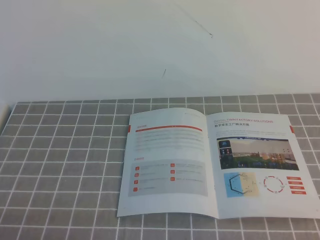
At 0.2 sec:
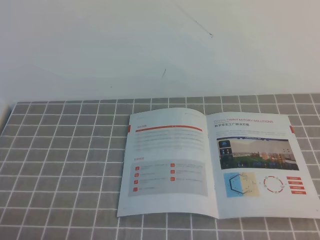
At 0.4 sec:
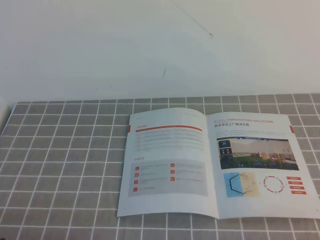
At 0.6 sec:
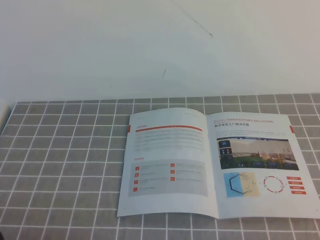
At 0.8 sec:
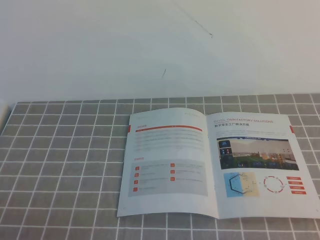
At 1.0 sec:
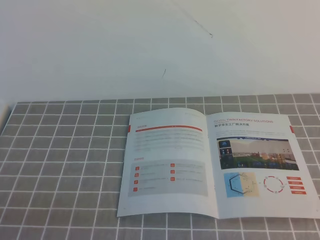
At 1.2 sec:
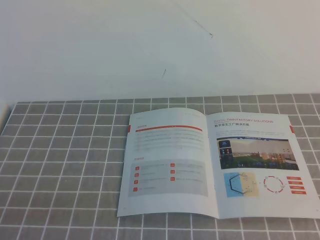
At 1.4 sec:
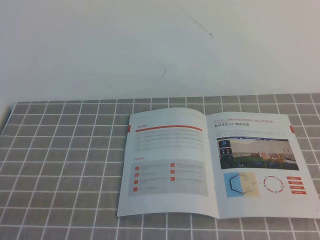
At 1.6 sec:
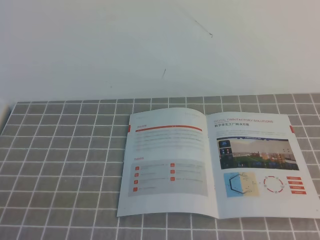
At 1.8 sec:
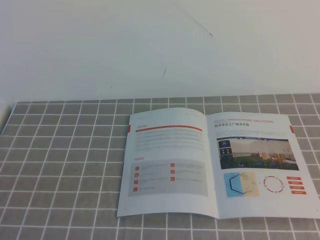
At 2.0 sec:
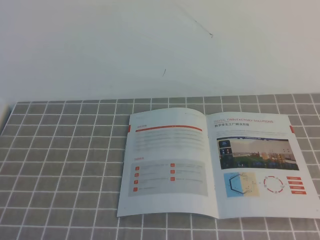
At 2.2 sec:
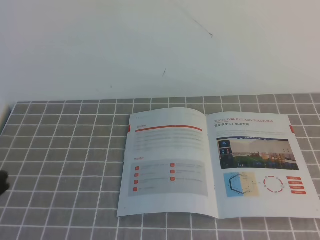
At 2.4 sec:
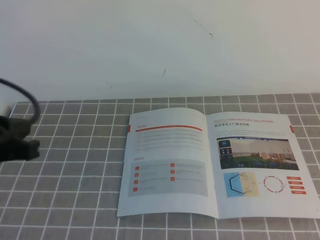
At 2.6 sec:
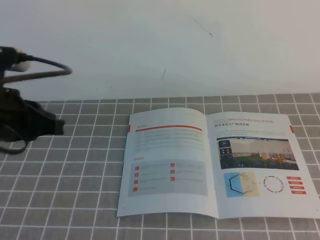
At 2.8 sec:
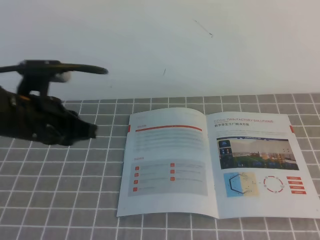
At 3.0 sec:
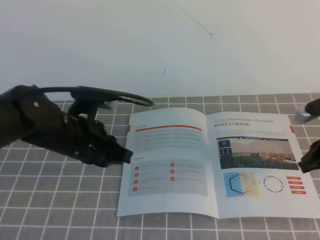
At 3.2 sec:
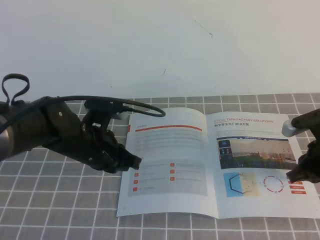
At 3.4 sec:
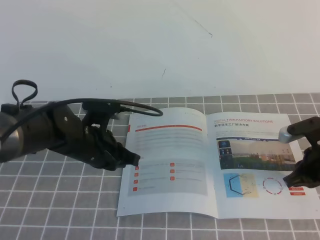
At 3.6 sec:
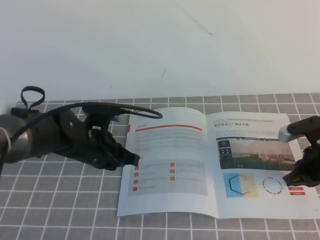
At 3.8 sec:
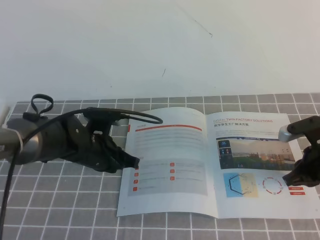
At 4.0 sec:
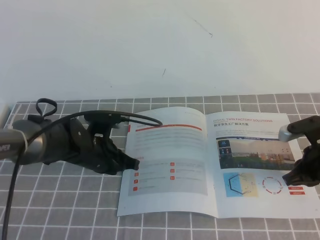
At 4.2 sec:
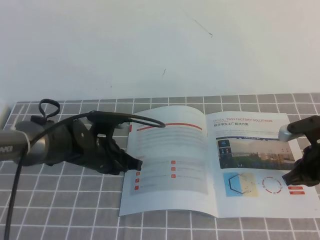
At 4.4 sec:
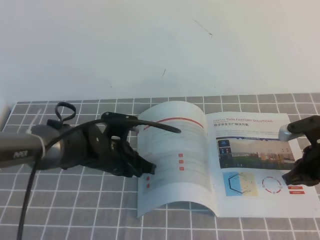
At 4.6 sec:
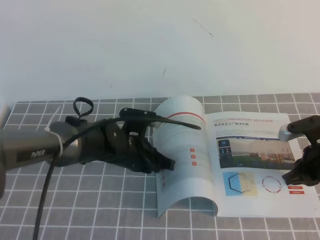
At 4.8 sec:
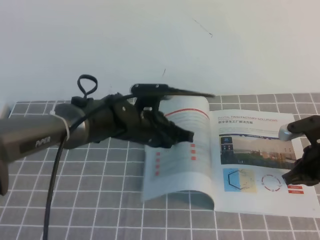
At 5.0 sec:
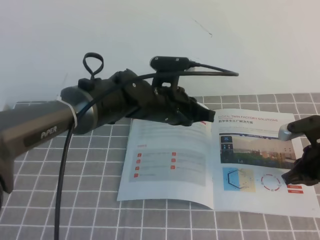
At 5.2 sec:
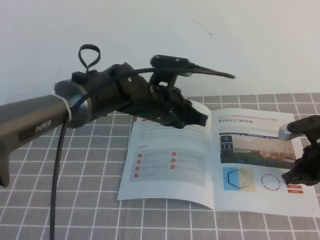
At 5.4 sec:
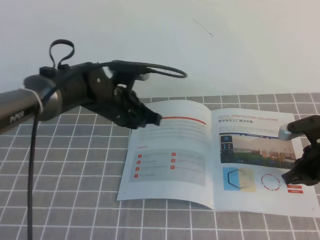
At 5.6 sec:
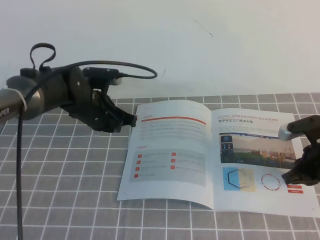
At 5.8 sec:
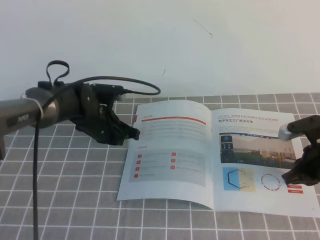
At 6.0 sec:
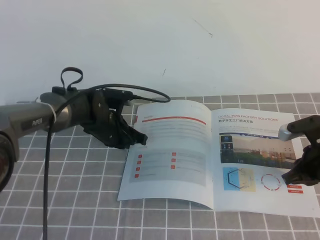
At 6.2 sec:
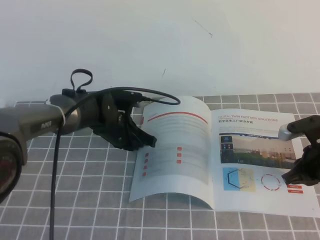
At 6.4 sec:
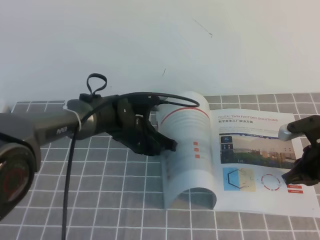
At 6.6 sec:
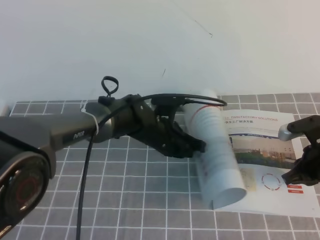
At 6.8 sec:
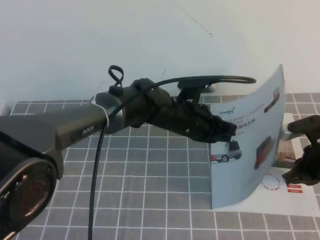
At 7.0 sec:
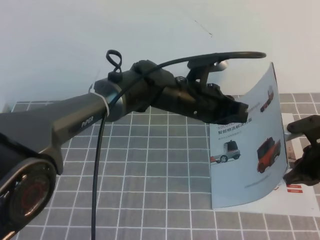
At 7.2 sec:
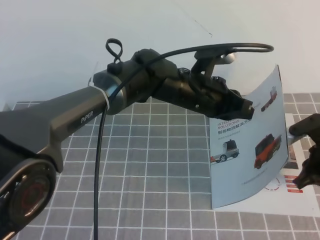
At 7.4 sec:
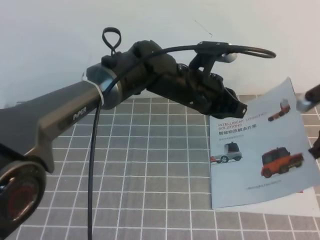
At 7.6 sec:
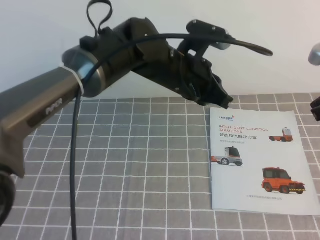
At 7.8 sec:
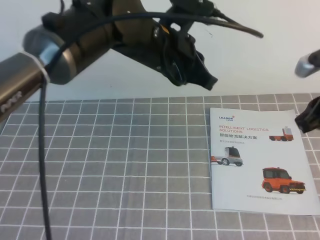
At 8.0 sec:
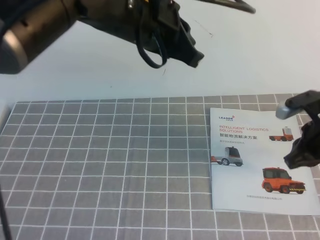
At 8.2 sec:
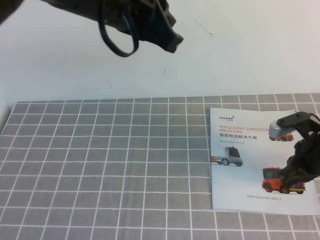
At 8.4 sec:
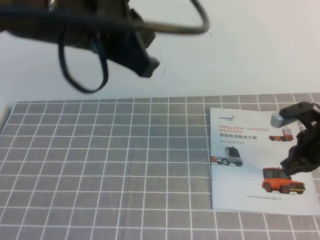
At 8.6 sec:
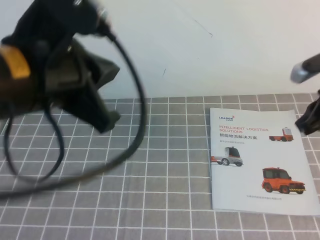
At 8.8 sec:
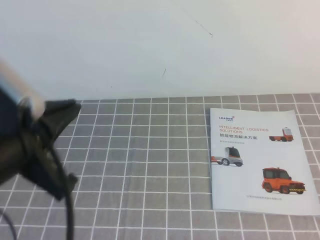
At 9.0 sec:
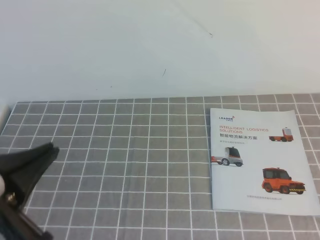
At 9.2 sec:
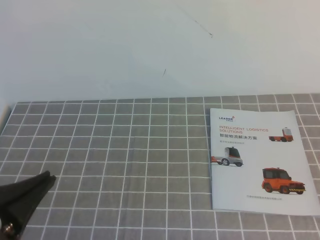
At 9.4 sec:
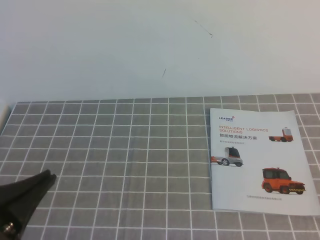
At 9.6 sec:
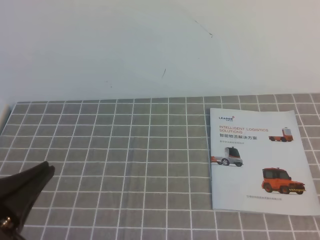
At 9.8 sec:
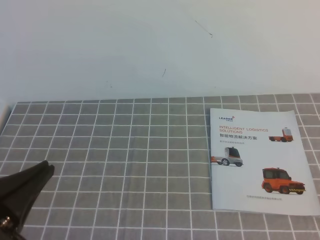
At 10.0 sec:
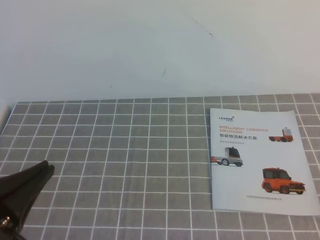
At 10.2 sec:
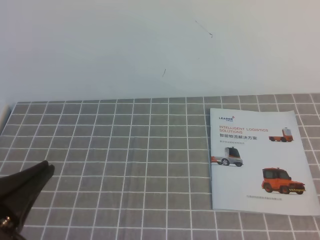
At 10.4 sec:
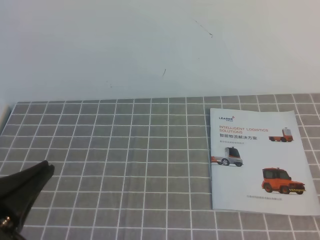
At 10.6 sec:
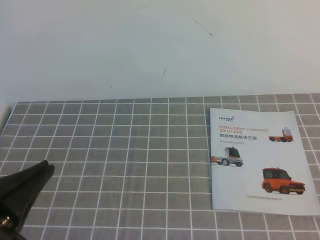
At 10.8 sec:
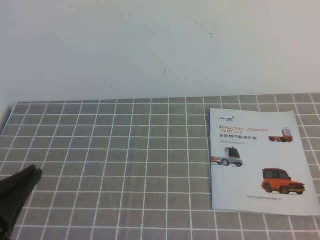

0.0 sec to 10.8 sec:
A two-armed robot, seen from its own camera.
Task of the whole recording: on the grey tablecloth, hold the book with one hand and close it with the other.
1.6 sec to 3.0 sec: Both grippers move forward, roughly 25 cm.
3.0 sec to 4.6 sec: The right gripper goes about 10 cm downward, while the left gripper moves downward and to the right, approximately 15 cm.
4.6 sec to 6.2 sec: The left gripper moves forward, approximately 5 cm, and travels to the left and back again, roughly 5 cm each way.
6.2 sec to 7.8 sec: The right gripper heads upward, covering approximately 15 cm. The left gripper goes roughly 20 cm upward and to the right.
7.8 sec to 9.2 sec: The right gripper heads backward and upward, covering approximately 25 cm. The left gripper goes approximately 30 cm backward and to the left.

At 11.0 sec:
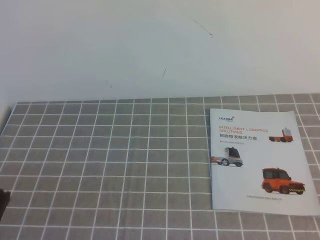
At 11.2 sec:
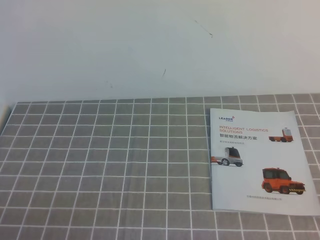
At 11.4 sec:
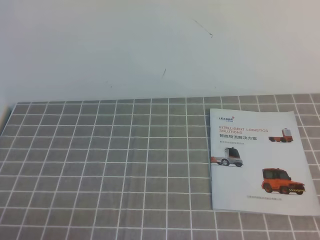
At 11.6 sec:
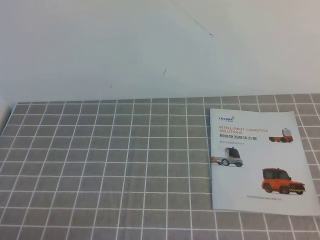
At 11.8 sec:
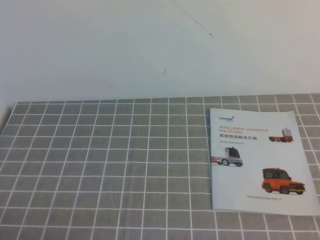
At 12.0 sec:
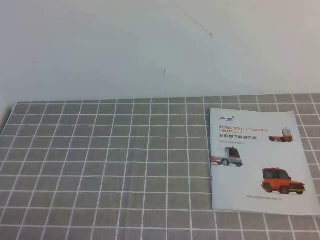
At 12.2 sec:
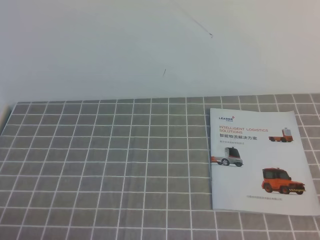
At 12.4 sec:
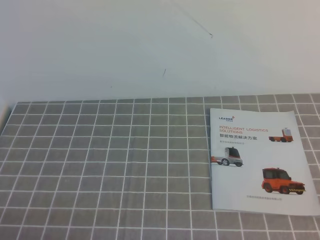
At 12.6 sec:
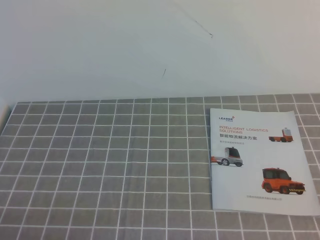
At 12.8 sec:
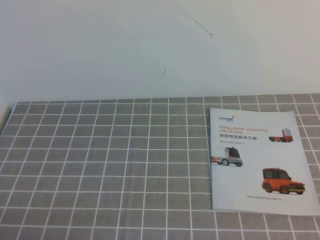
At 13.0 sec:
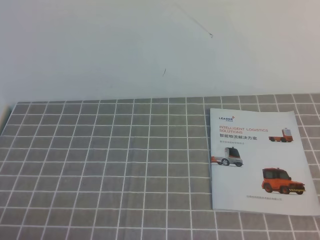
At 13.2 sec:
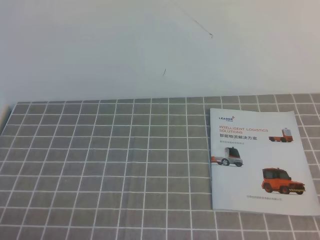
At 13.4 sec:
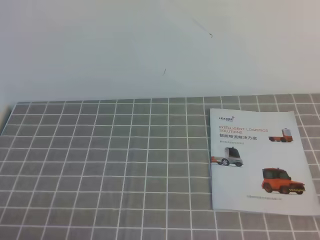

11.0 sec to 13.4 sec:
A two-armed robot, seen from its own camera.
Task of the whole recording: on the grey tablecloth, hold the book with one hand and close it with the other.
12.2 sec to 13.4 sec: Neither gripper changes place.
